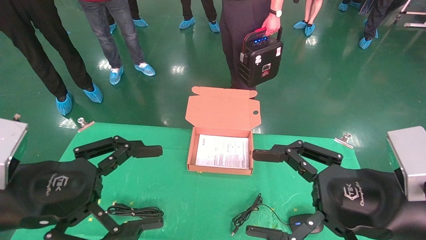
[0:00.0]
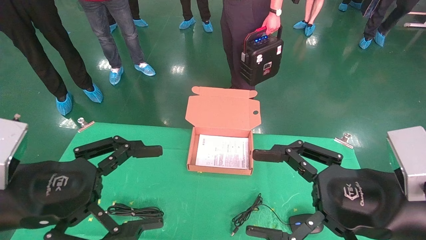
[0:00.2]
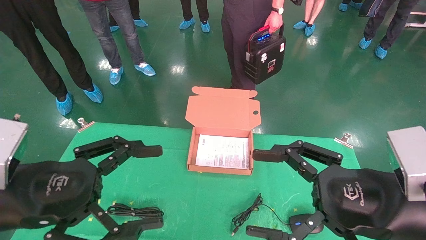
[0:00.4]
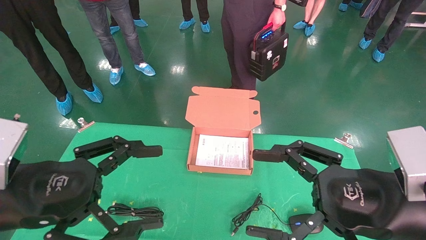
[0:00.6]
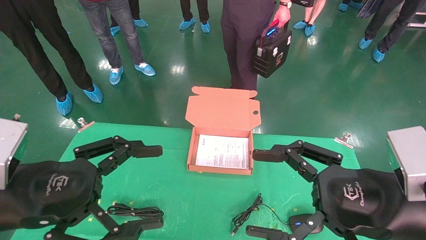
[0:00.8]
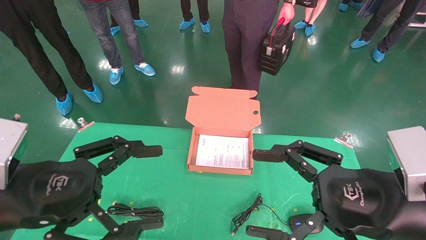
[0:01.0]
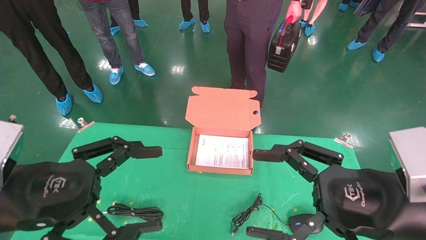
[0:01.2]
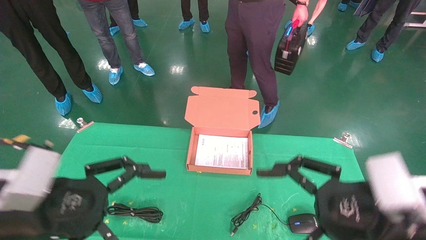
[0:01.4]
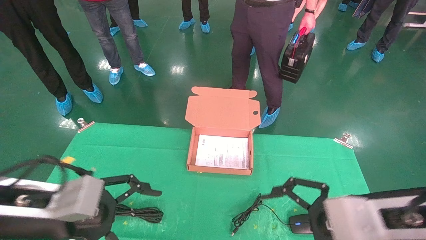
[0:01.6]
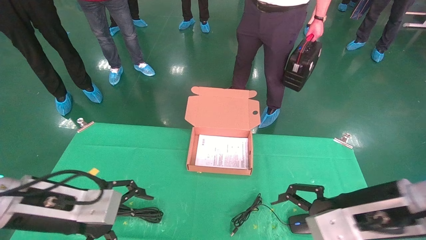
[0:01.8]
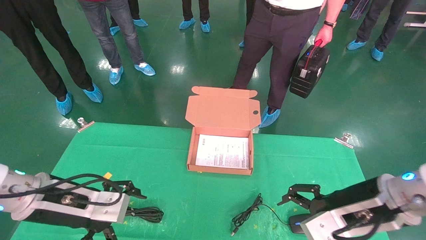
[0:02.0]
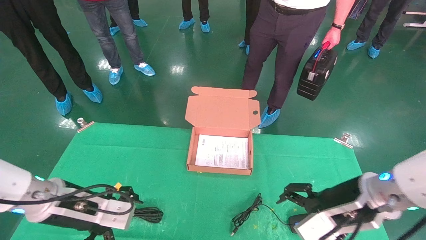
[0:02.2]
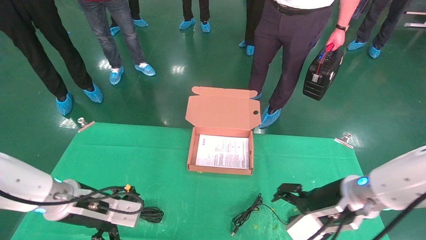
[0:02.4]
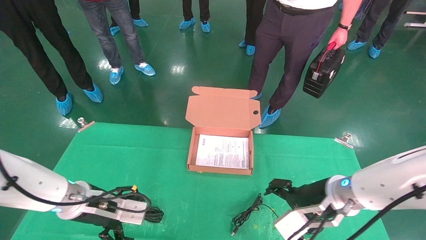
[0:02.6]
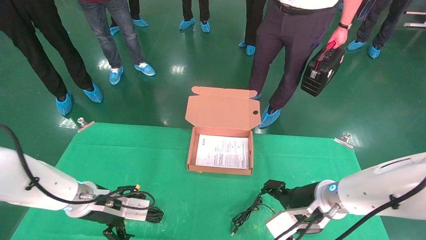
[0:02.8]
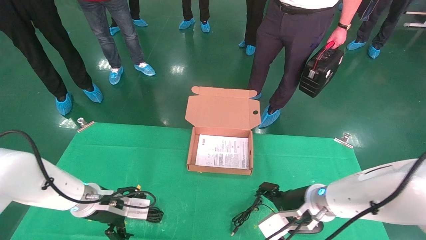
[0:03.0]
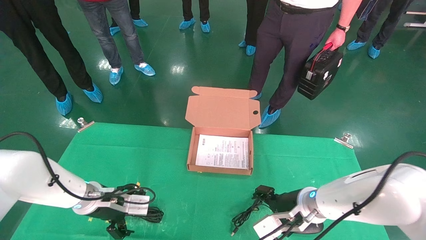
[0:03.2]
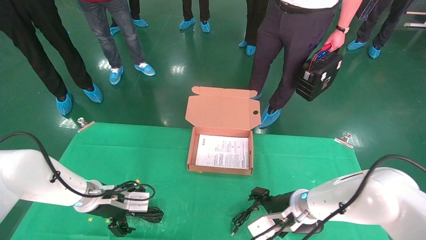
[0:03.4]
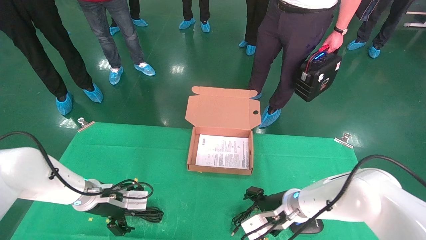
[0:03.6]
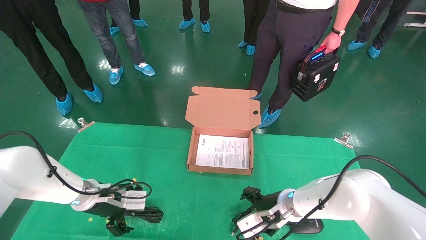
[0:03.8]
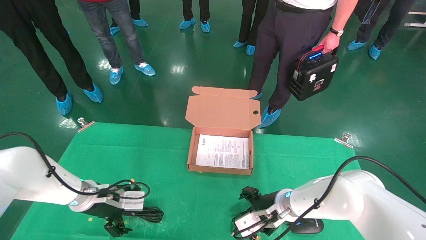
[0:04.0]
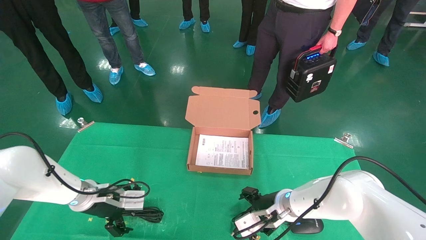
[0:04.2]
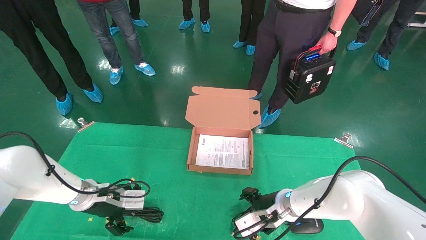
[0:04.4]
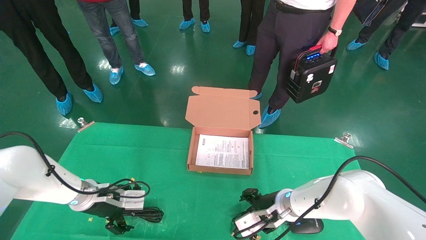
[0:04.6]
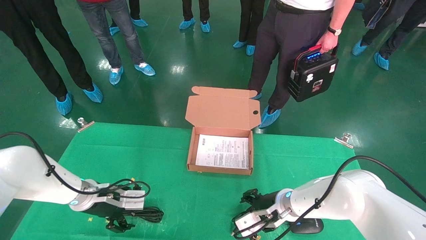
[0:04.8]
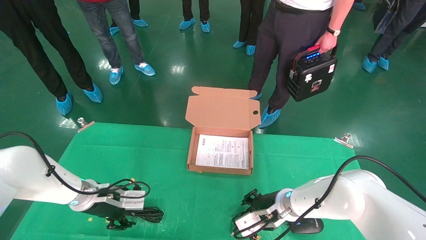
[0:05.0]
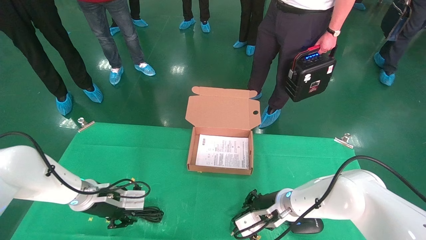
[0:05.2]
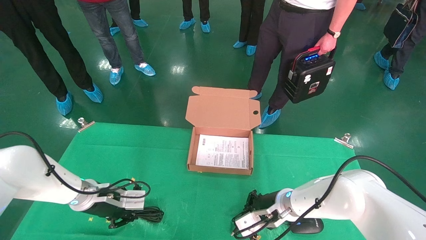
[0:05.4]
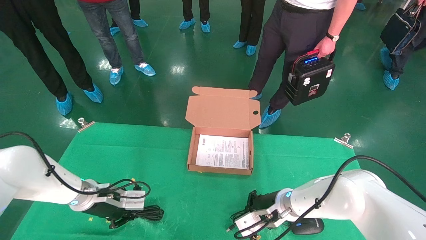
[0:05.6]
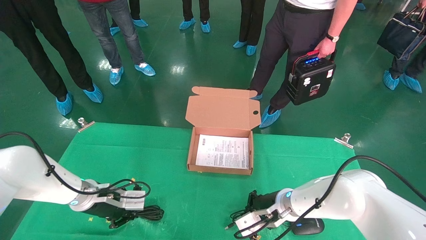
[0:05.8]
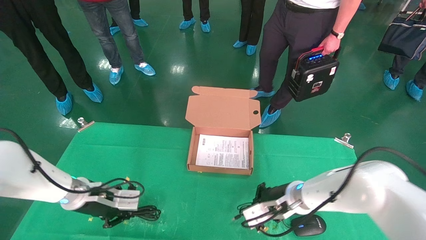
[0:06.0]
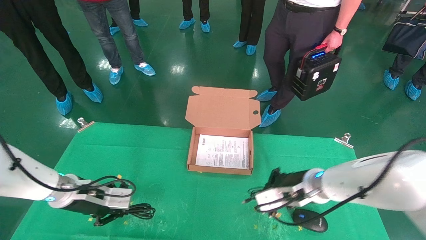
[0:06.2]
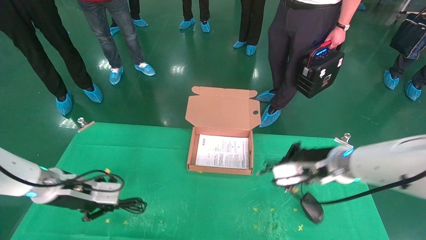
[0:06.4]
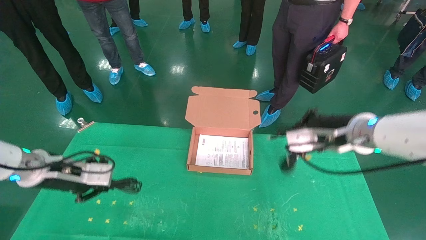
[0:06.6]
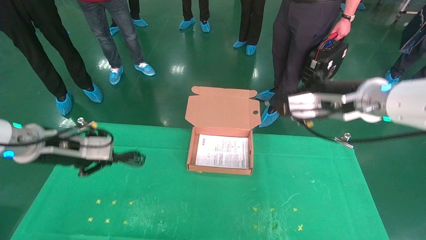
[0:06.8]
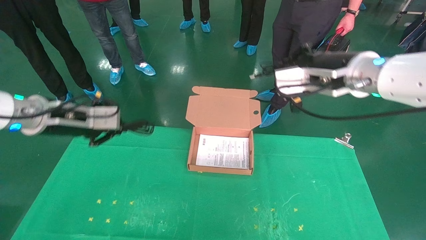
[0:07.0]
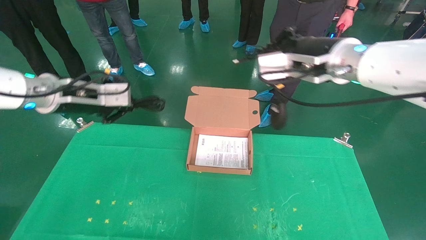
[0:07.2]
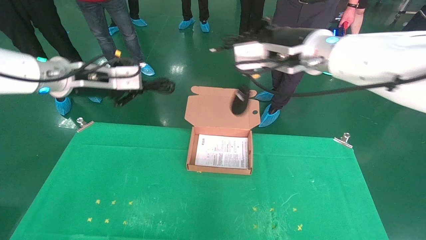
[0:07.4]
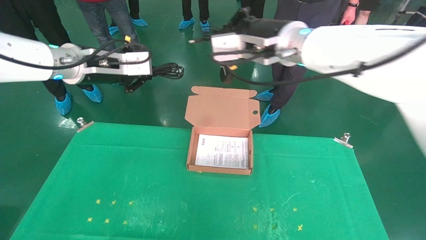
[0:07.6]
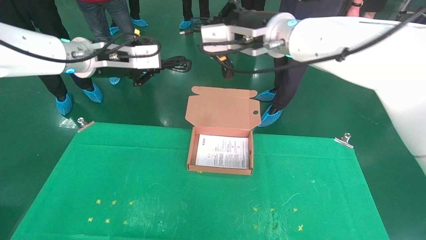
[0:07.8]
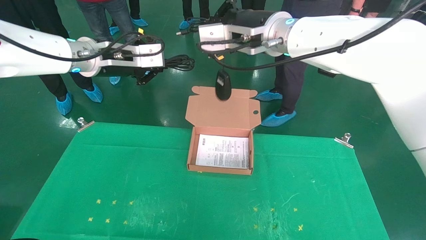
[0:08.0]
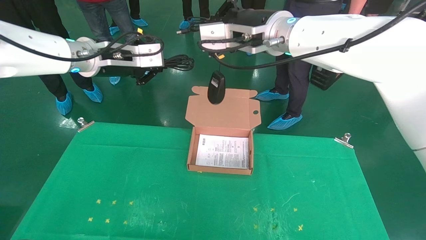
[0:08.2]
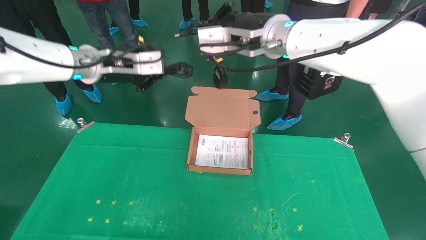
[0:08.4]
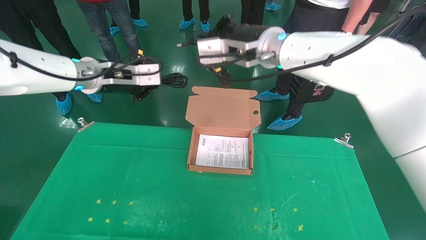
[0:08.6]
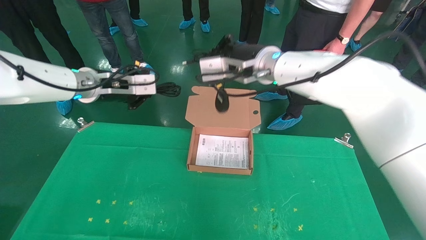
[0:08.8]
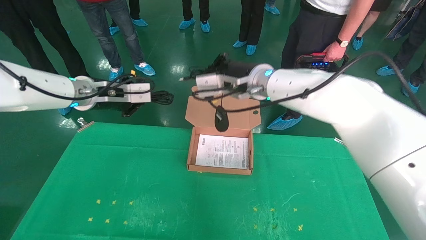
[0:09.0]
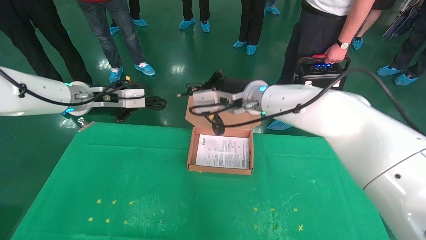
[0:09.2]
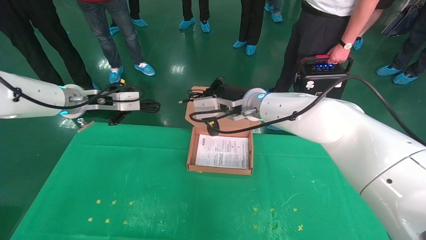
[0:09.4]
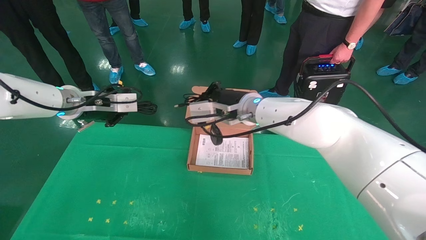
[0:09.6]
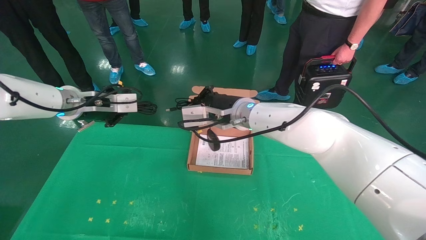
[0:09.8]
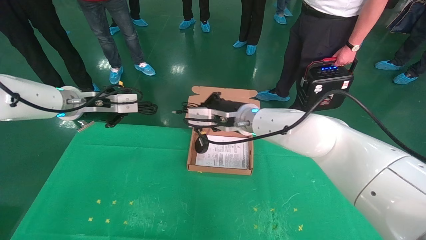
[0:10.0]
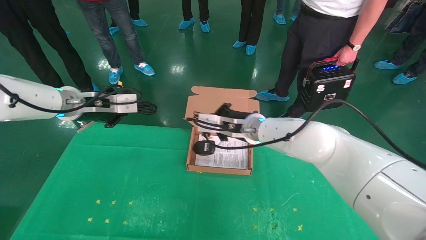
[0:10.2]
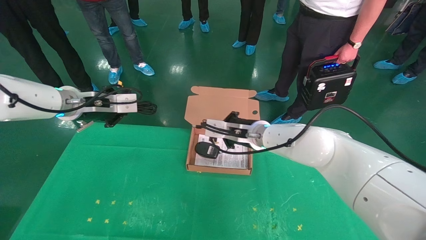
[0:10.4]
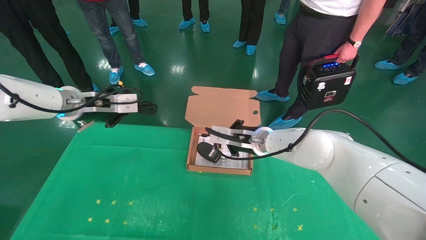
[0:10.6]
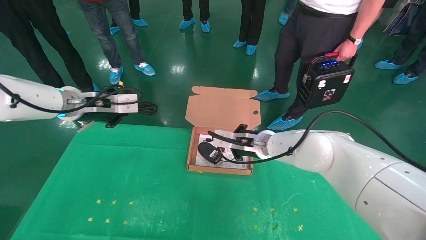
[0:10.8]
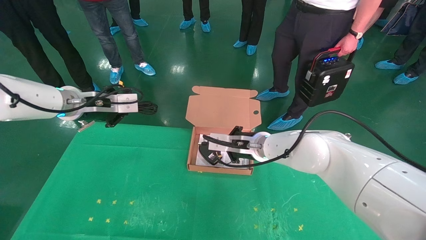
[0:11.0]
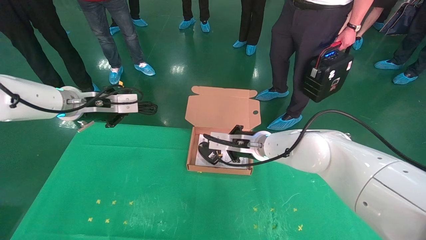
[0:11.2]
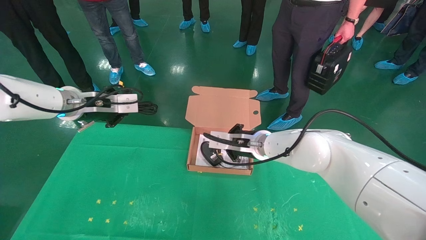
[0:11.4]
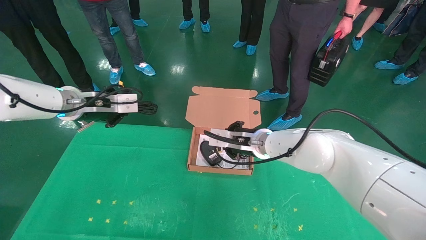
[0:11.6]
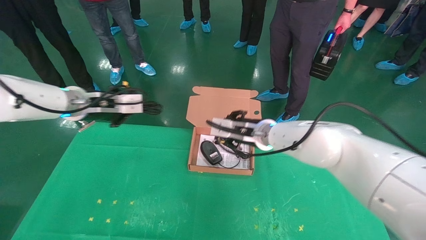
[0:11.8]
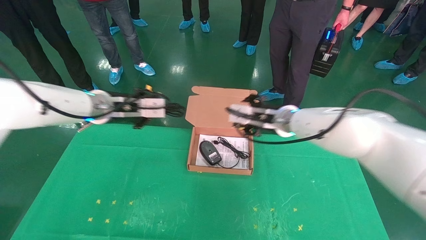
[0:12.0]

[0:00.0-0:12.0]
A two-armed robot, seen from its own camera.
Task of the whole recording: grasp data cable left put into box grasp mouse right put into box.
Step, 0:01.2 to 0:06.6: Grab and pick up both the mouse and power cord from the accessory packaging area at the same time.
0:00.0 to 0:01.6: The left gripper shifts by roughly 5 cm.
0:01.6 to 0:03.0: The grippers both shift forward and downward by roughly 20 cm.
0:03.0 to 0:04.4: The right gripper moves approximately 10 cm.
0:04.4 to 0:06.0: The left gripper closes up; the right gripper closes up.
0:06.0 to 0:07.6: Both grippers move upward, some 30 cm.
0:07.6 to 0:09.0: The right gripper is displaced downward, forward and to the left by some 15 cm. The left gripper goes approximately 5 cm downward.
0:09.0 to 0:10.4: The right gripper shifts about 10 cm downward.
0:10.4 to 0:12.0: The right gripper heads to the right, covering roughly 5 cm, and opens.

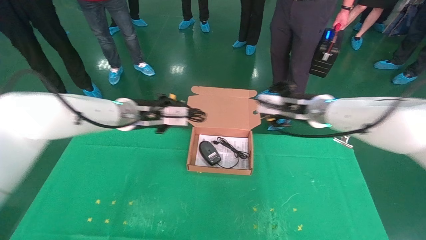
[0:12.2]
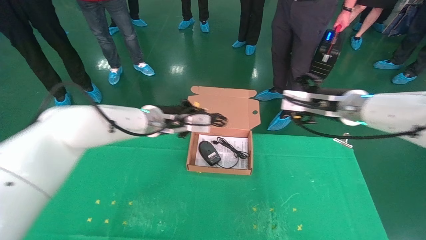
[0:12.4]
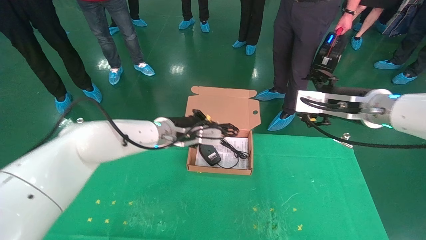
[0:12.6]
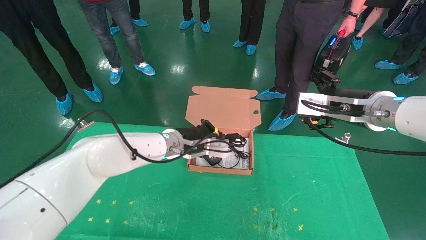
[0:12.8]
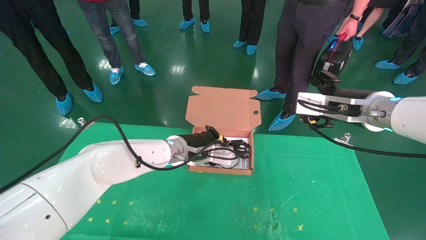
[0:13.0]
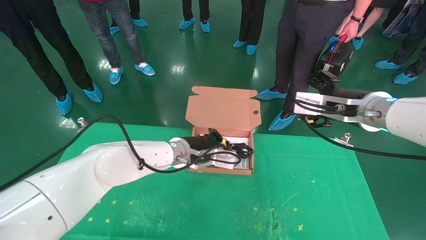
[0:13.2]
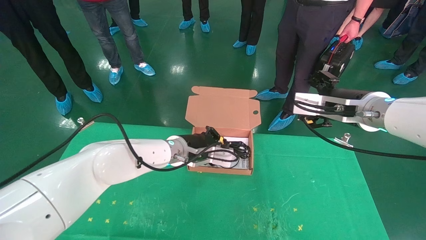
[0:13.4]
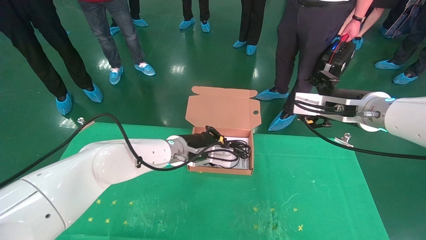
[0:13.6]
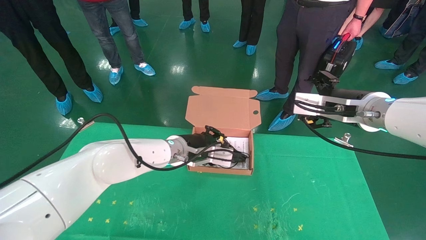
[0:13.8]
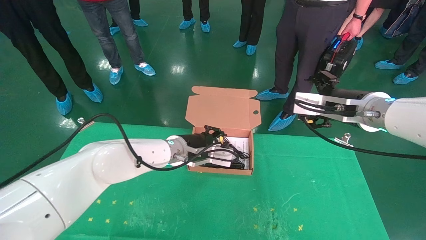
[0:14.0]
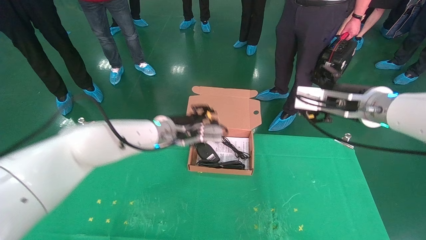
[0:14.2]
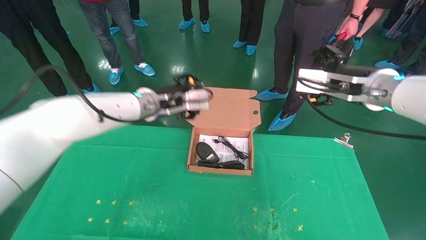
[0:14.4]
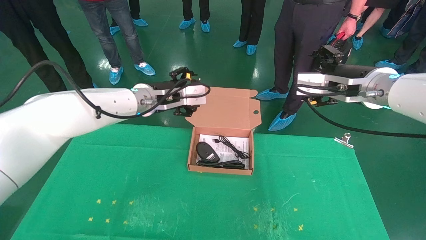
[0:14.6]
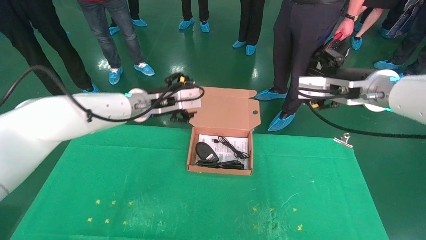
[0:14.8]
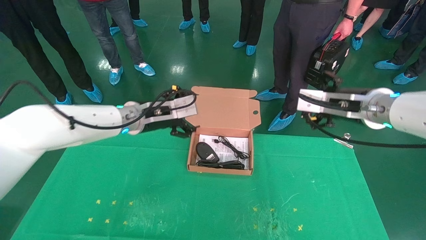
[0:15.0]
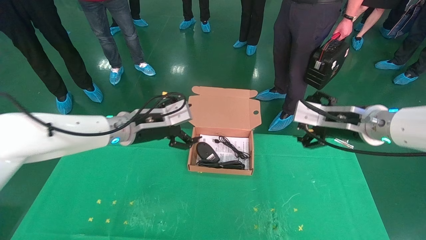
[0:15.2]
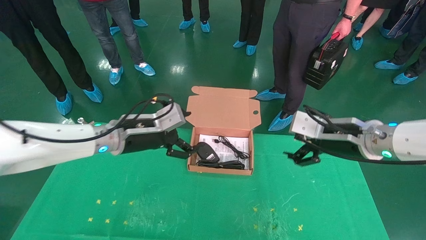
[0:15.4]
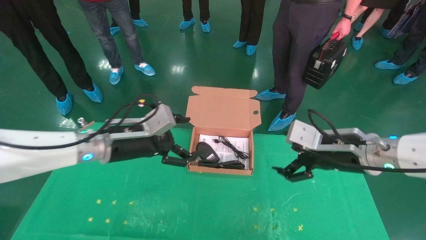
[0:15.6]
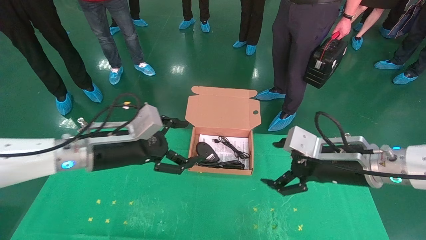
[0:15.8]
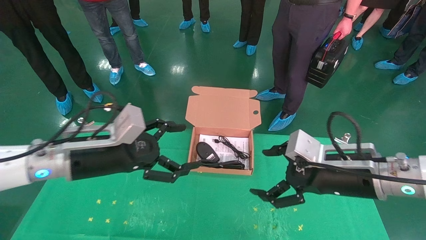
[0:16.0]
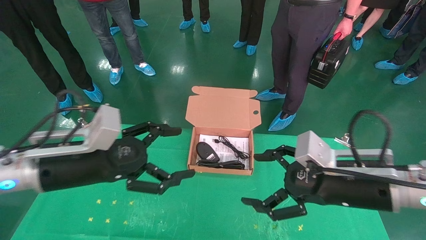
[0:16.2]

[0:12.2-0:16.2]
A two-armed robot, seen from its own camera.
Task of the whole recording: grasp data cable left put into box grasp mouse right put into box.
0:12.2 to 0:13.6: The left gripper travels to the right and downward by some 15 cm. Meanwhile the right gripper travels backward and to the right by approximately 10 cm, and opens.
0:13.6 to 0:14.8: The left gripper goes approximately 15 cm upward and to the left, and opens up.
0:14.8 to 0:16.2: The left gripper moves backward and to the left, approximately 15 cm, while the right gripper heads downward and backward, covering roughly 15 cm.
